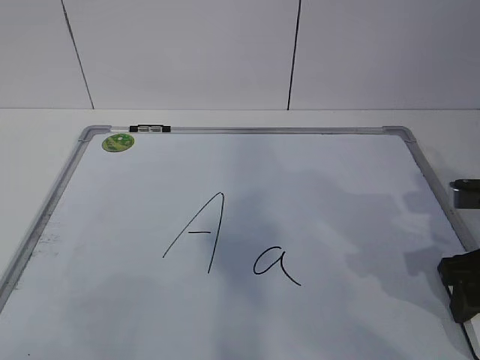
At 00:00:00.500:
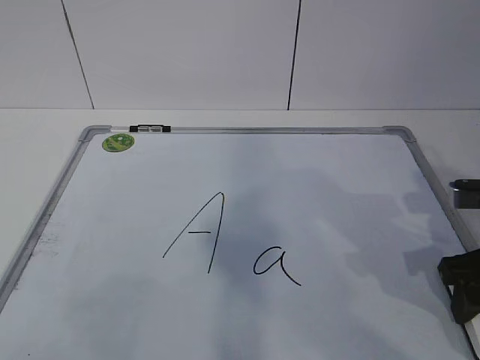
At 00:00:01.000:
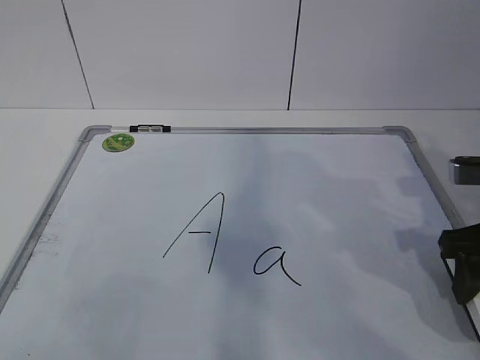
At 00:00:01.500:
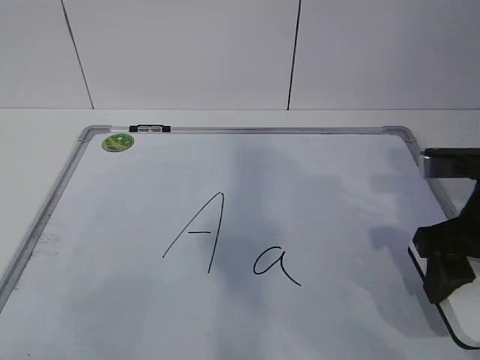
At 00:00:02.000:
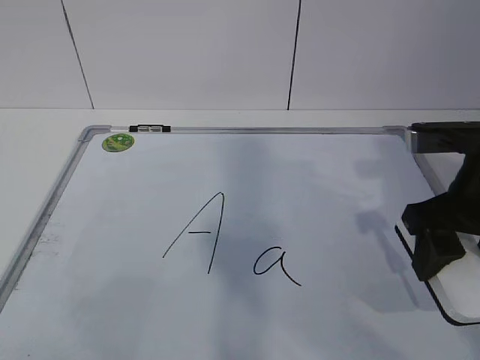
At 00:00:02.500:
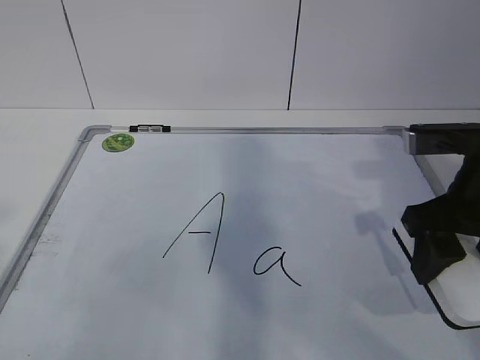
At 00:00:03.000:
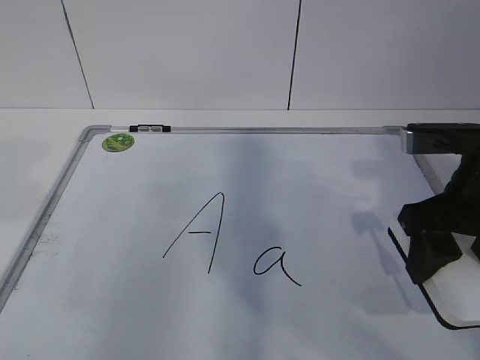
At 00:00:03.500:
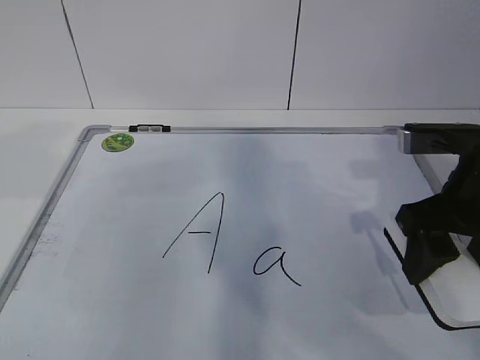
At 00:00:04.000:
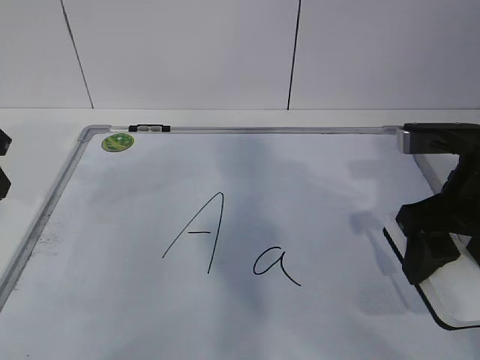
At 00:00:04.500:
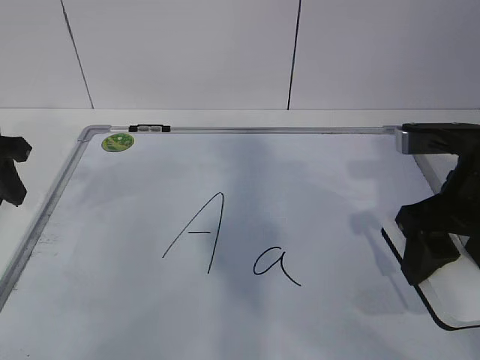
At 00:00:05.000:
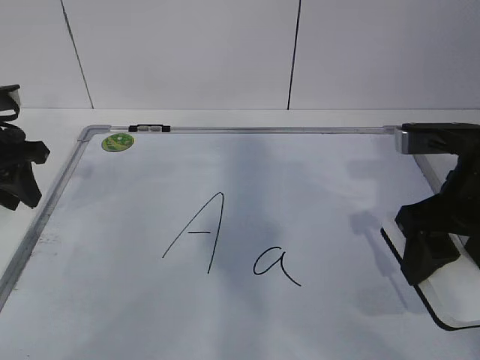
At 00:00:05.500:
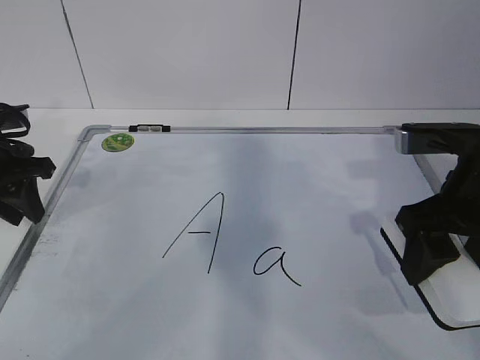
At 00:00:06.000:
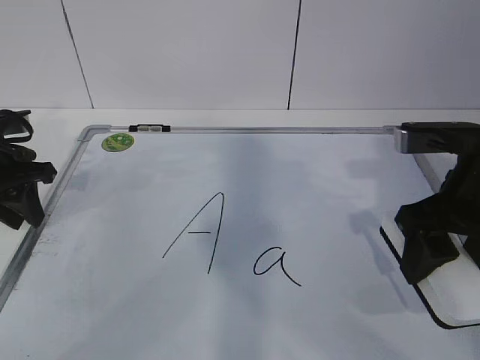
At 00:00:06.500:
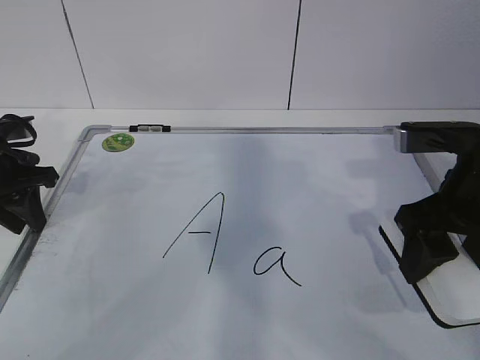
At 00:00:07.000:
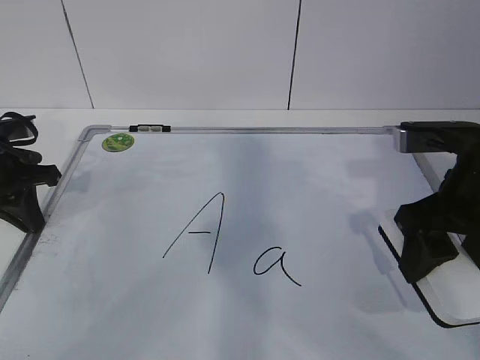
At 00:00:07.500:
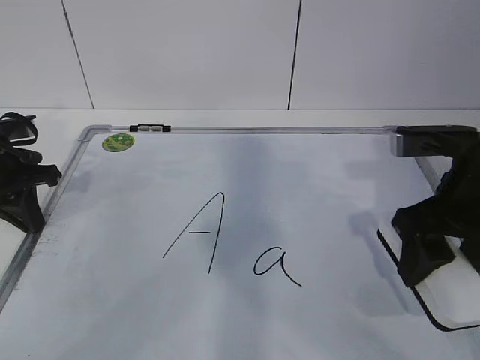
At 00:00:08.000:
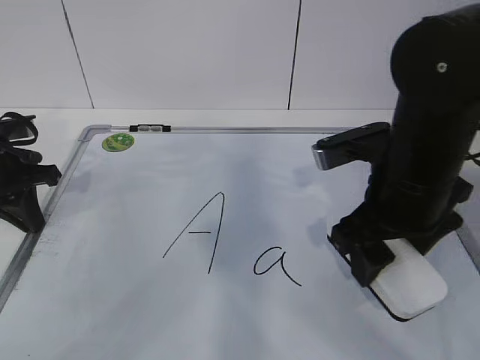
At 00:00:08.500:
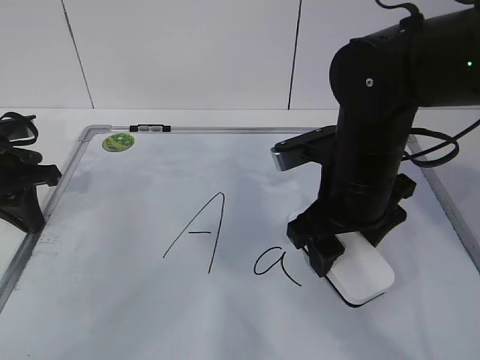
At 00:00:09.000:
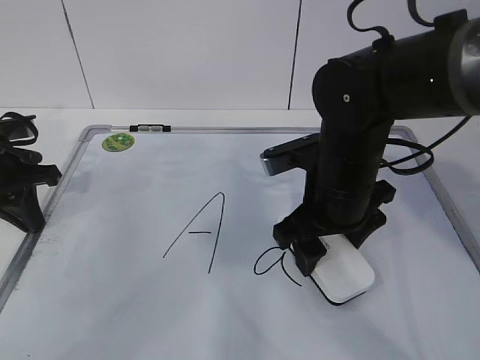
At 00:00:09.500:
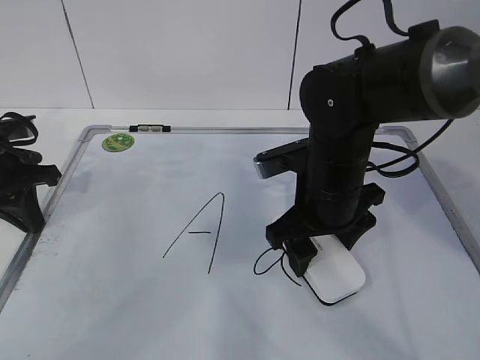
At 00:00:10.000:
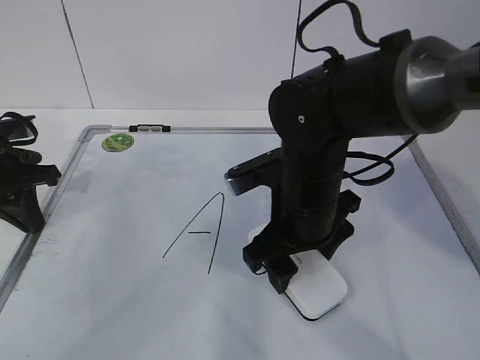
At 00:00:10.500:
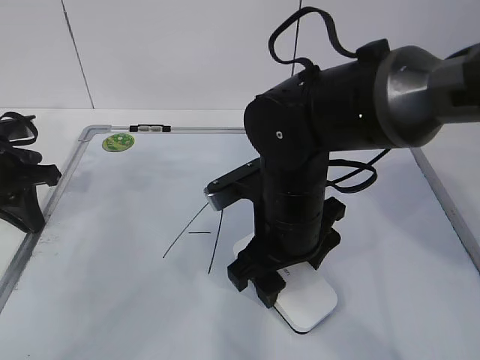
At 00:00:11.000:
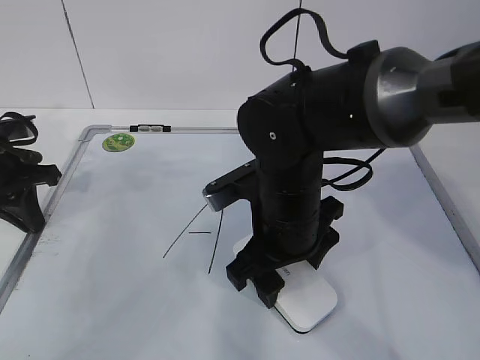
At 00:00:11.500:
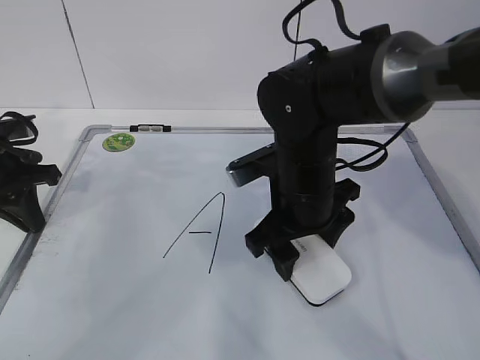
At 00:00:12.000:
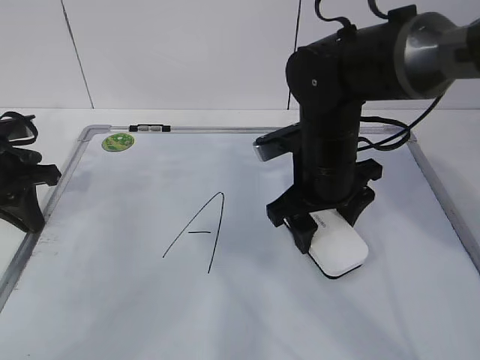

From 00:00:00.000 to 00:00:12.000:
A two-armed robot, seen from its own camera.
Task of the whole recording: pick up the eraser on the blackboard and erase the letter "a".
Step, from 00:00:00.000 to 00:00:03.500: Hold the drawing board steady with your left hand.
Step, from 00:00:04.000 to 00:00:08.000: Erase the letter a with your right hand.
From 00:00:00.000 to 00:00:02.000: The right gripper goes some 5 cm upward.
From 00:00:04.000 to 00:00:06.000: The left gripper goes roughly 10 cm downward and forward.
From 00:00:06.000 to 00:00:08.000: The right gripper heads to the left, covering some 5 cm. The left gripper closes its fingers.
From 00:00:08.000 to 00:00:10.000: The right gripper is displaced to the left and downward by approximately 10 cm.
From 00:00:10.000 to 00:00:12.000: The right gripper changes place by roughly 5 cm.

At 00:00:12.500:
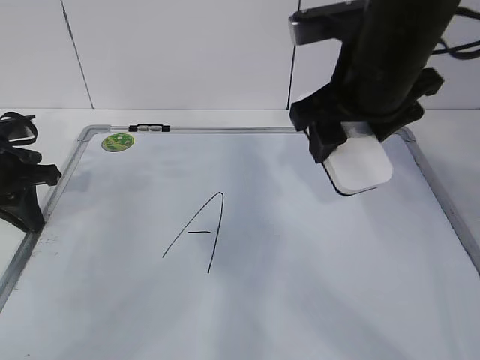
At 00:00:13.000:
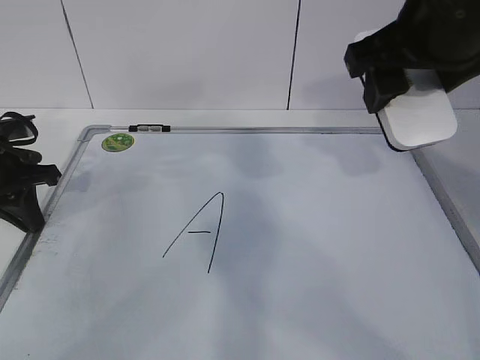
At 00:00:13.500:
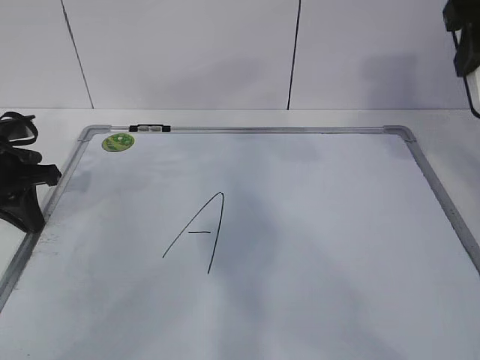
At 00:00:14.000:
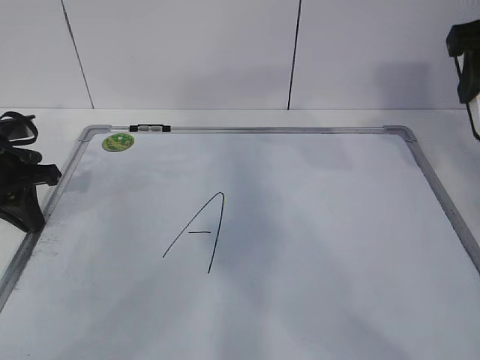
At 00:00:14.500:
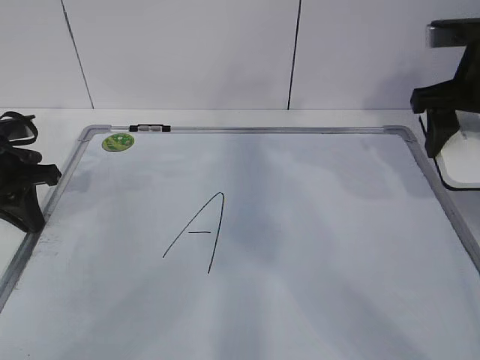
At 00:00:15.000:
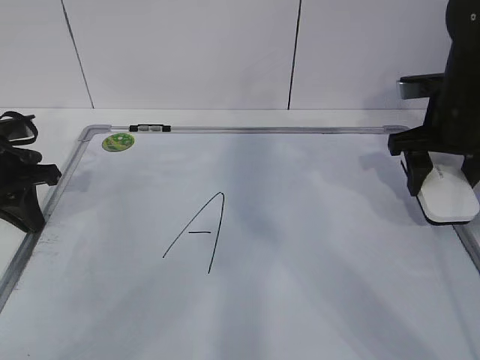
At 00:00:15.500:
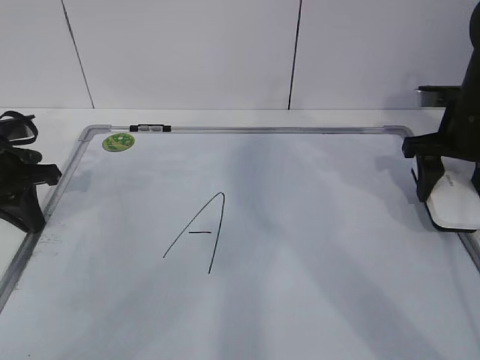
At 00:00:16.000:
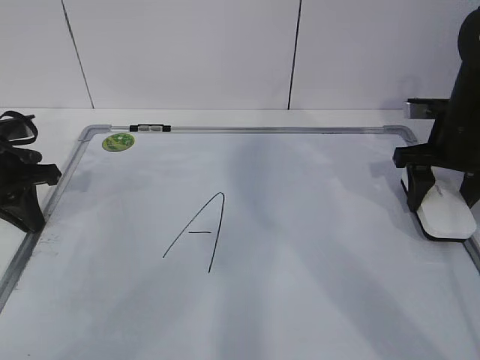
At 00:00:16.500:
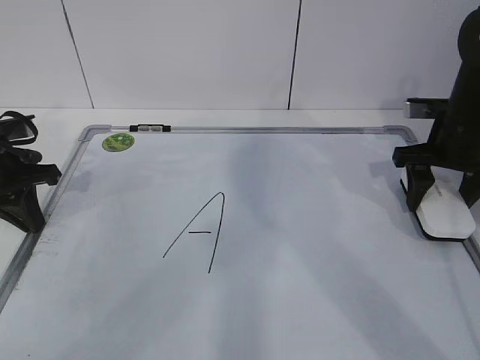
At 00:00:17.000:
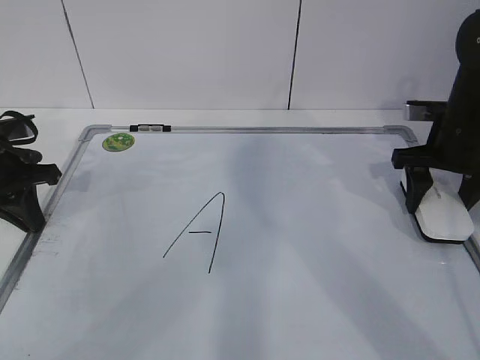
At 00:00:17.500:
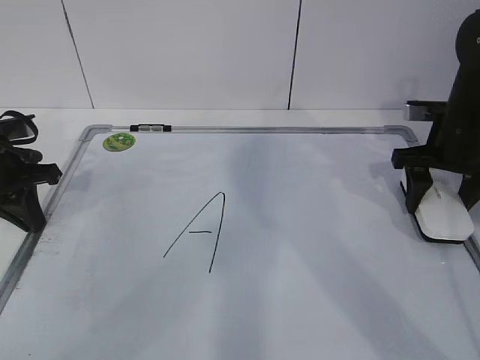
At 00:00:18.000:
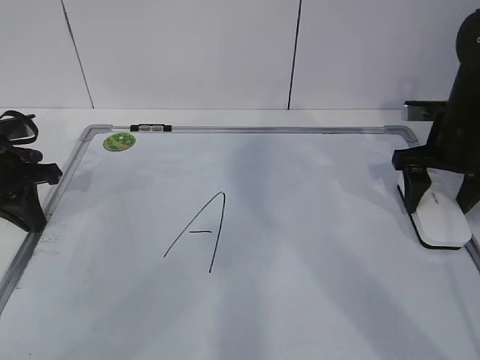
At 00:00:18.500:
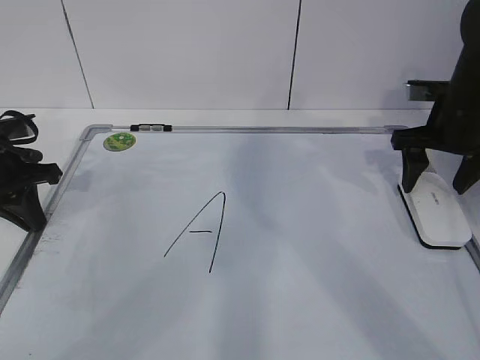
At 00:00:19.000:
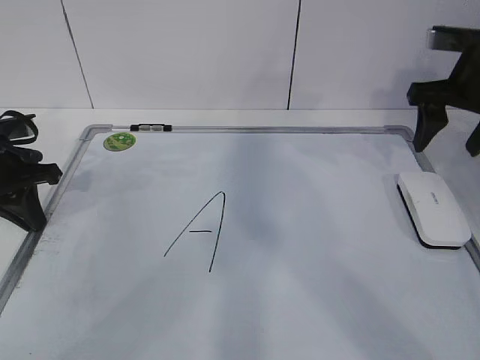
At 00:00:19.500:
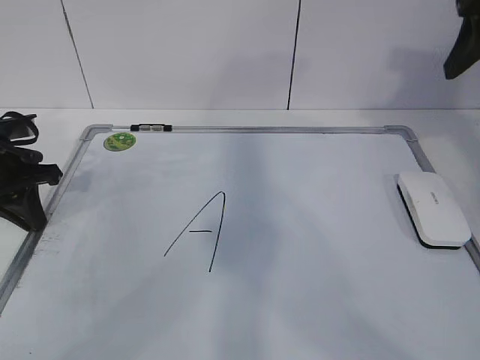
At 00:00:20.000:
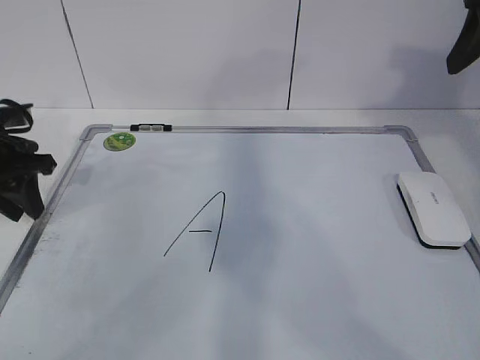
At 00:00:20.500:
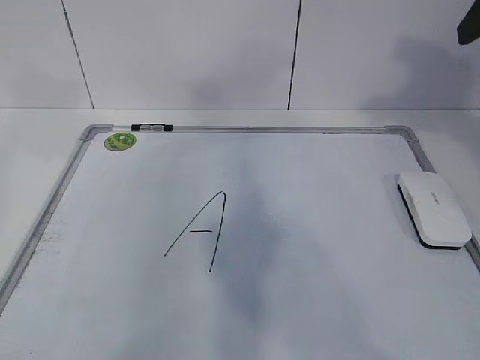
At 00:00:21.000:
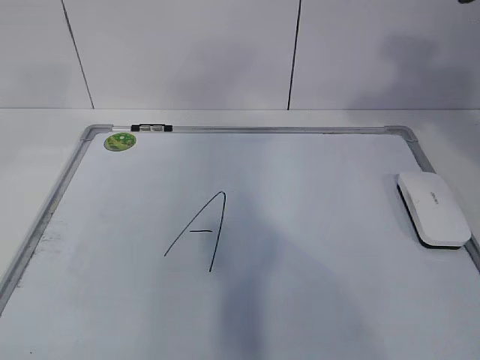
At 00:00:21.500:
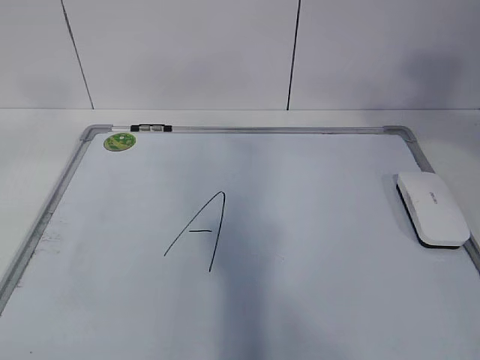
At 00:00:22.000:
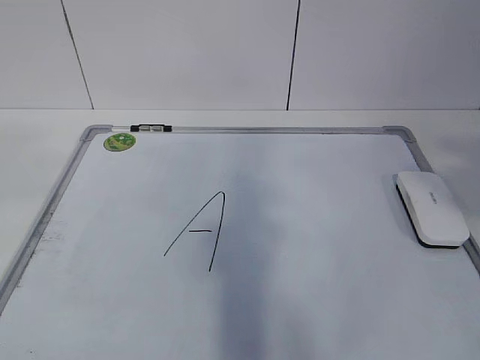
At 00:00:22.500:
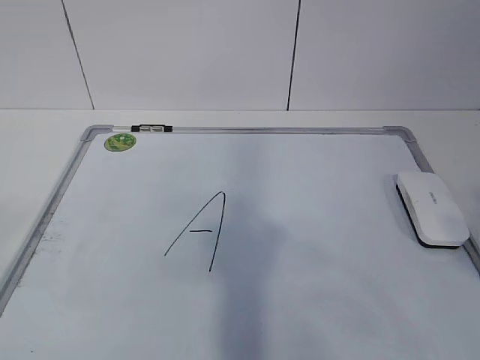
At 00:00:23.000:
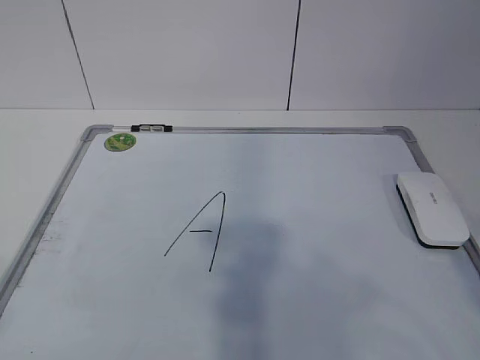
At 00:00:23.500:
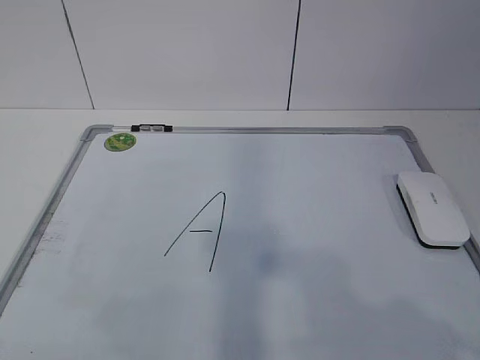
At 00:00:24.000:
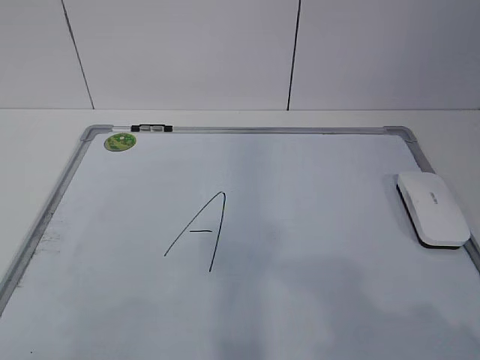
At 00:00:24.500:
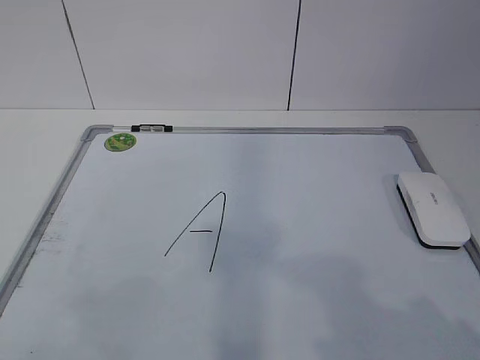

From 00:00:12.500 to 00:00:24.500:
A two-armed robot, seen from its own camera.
Task of the whole recording: pick up the eraser on the blackboard and erase the letter "a".
From 00:00:12.500 to 00:00:14.500: The right gripper moves to the right, about 15 cm.
From 00:00:14.500 to 00:00:16.500: The right gripper heads downward, covering about 10 cm.
From 00:00:16.500 to 00:00:18.500: The right gripper opens its fingers.
From 00:00:18.500 to 00:00:20.500: The right gripper heads upward and backward, covering approximately 25 cm, and closes, while the left gripper heads upward, covering roughly 15 cm, and opens up.
From 00:00:20.500 to 00:00:22.500: The two grippers go about 35 cm backward.
From 00:00:22.500 to 00:00:24.500: The left gripper moves downward and forward, about 20 cm; the right gripper heads downward, covering about 15 cm.
